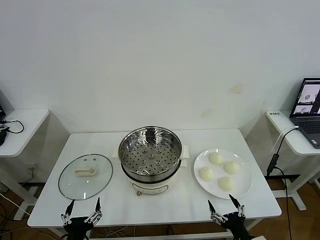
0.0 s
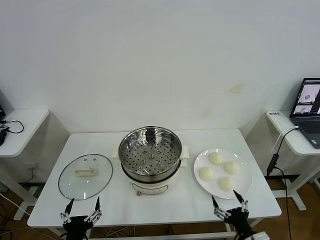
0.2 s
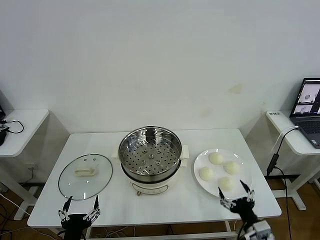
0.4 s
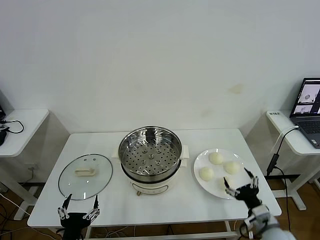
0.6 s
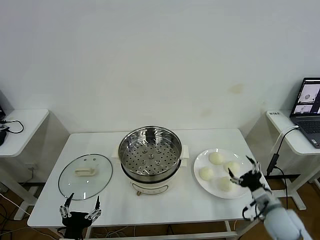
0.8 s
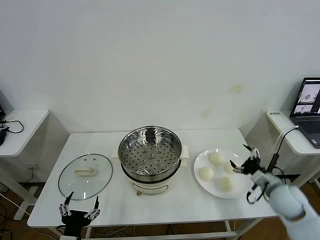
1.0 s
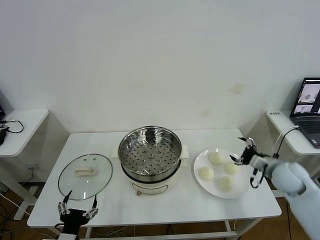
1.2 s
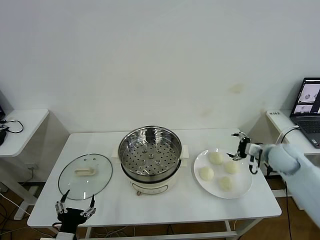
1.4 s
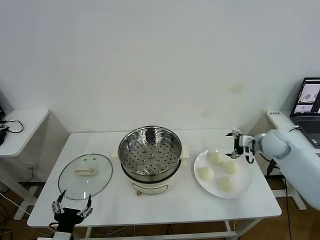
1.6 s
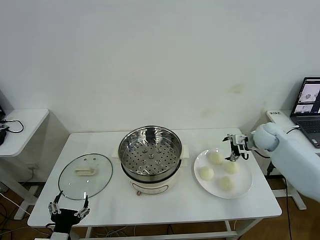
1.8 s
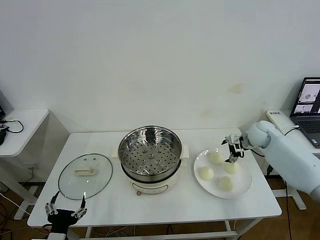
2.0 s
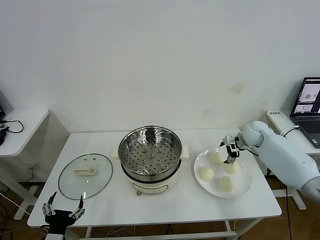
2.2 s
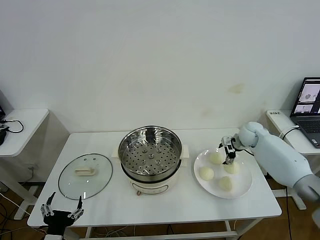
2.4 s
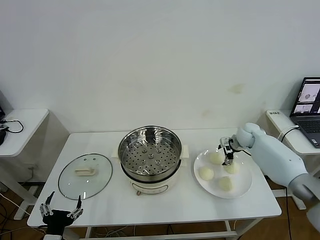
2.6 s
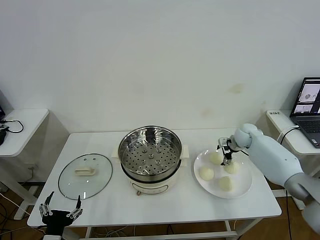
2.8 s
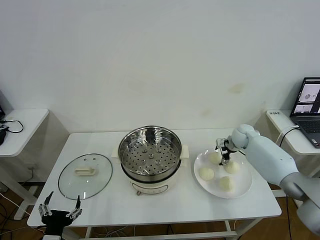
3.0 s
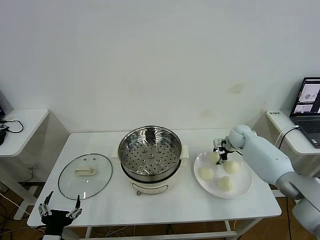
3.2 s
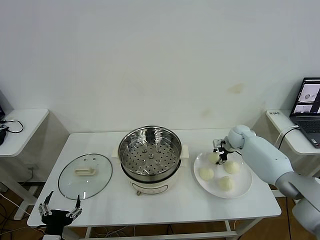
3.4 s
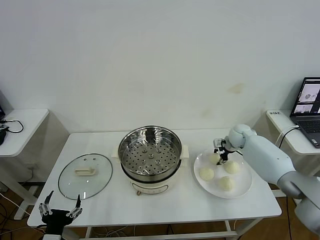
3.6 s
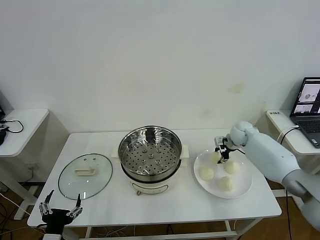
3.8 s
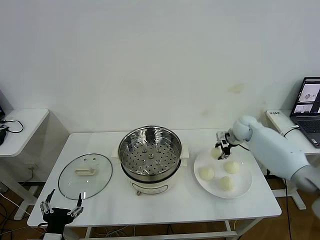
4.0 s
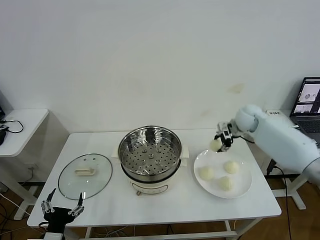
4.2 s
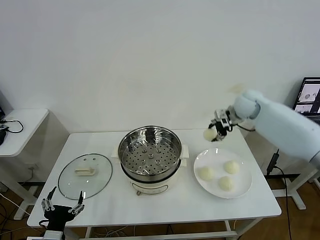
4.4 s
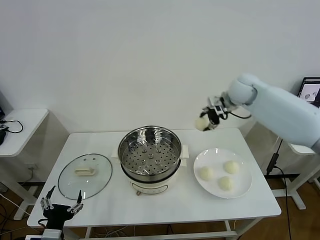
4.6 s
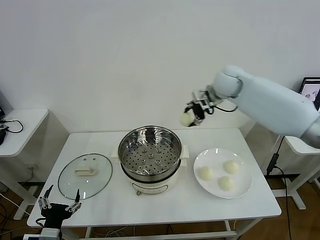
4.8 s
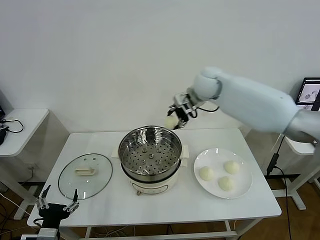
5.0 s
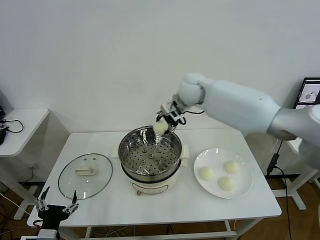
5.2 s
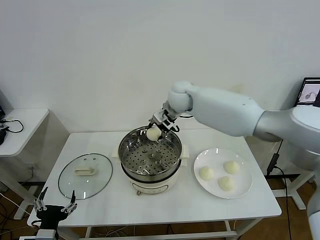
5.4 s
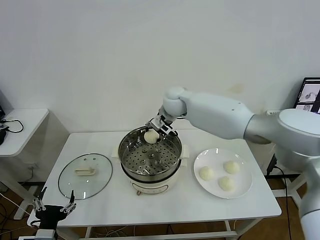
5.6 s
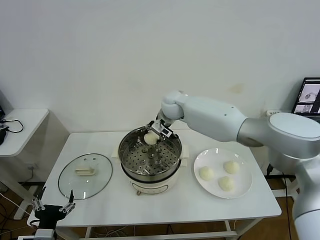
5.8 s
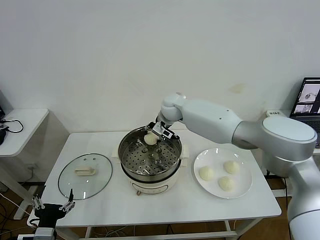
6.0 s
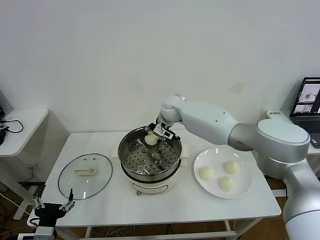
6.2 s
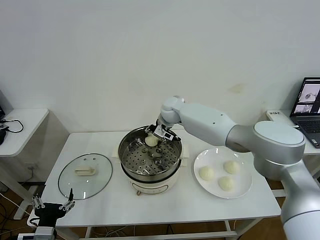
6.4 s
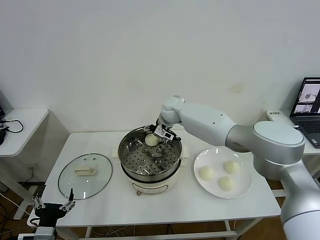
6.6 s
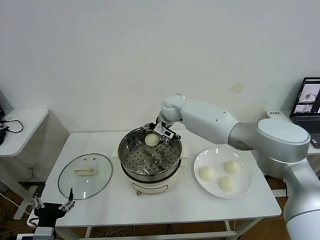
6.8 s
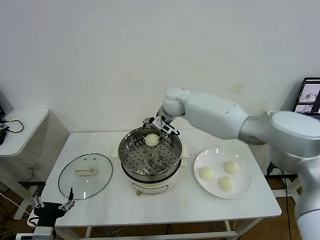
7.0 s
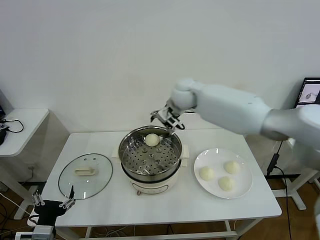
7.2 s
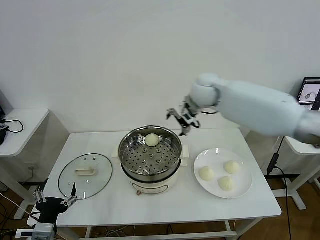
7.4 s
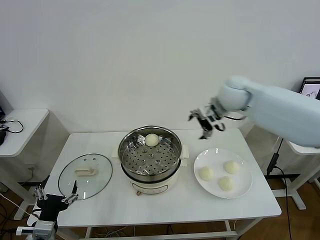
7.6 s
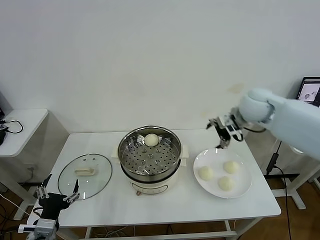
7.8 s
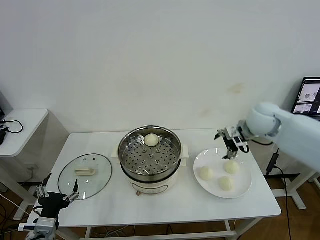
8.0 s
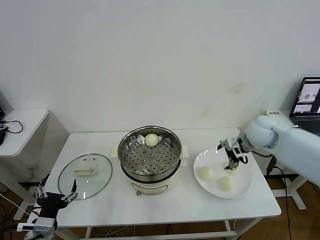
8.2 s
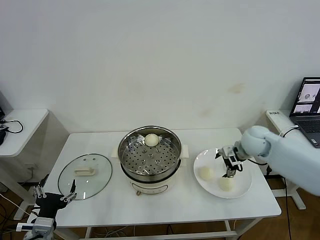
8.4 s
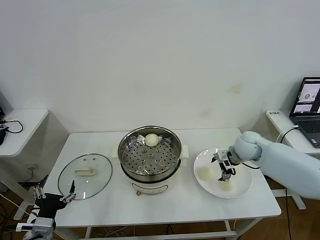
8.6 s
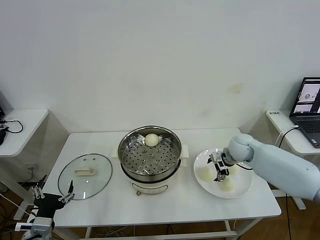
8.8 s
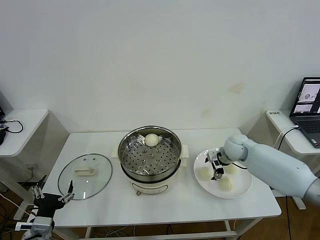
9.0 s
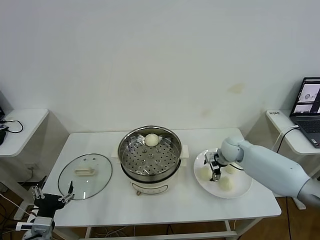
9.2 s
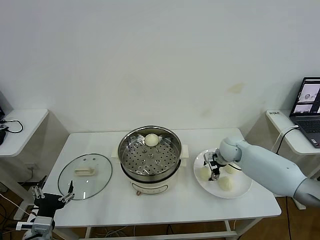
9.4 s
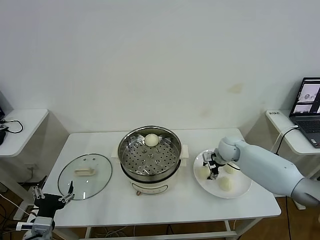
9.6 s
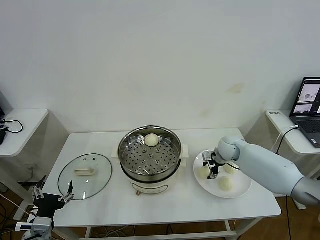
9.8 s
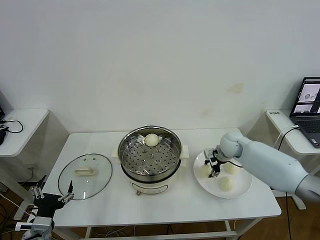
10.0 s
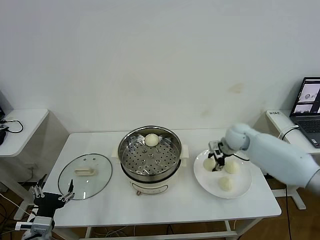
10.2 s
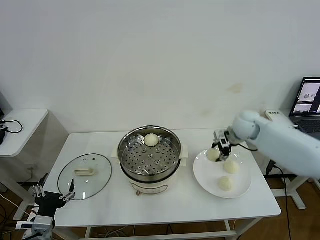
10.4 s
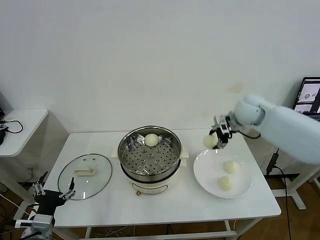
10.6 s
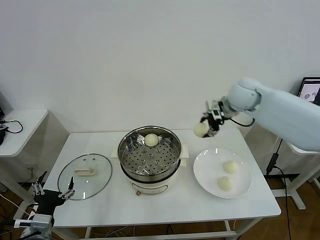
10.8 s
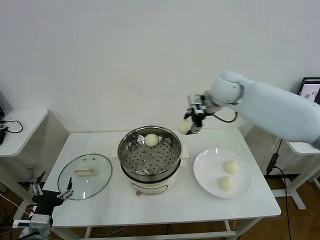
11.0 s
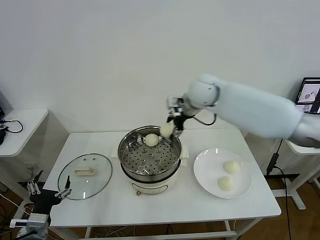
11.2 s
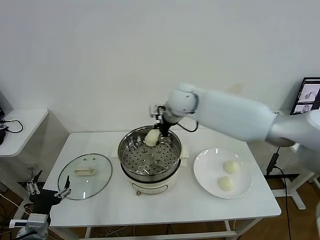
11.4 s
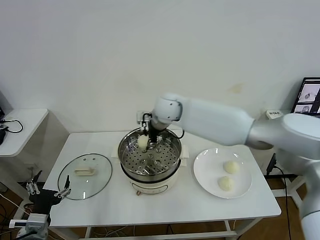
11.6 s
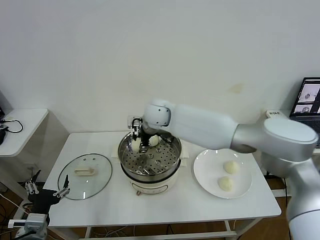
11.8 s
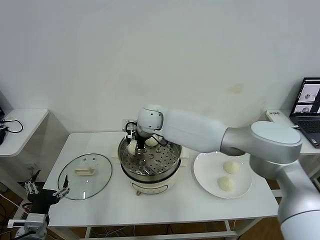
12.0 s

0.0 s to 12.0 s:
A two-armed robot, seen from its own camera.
Task of the whole recording: take steamed baozi put them in steamer then cover it.
Step, 0.0 to 3.4 s: Grasp the baozi in the plate with right gripper.
Step, 3.6 to 7.0 s: Place the baozi on the steamer with right gripper.
Step, 7.2 to 9.8 s: Grasp the baozi in the plate with right gripper.
1.6 to 3.0 s: The right gripper shifts some 15 cm forward, downward and to the left.
3.0 to 4.4 s: The right gripper travels upward by some 15 cm, and closes up.
4.4 to 6.0 s: The right gripper travels to the left by roughly 25 cm.
6.0 to 7.6 s: The right gripper is displaced to the right, upward and backward by some 20 cm, and opens up.
7.6 to 9.0 s: The right gripper shifts roughly 20 cm downward.
9.0 to 10.4 s: The right gripper heads upward, covering some 10 cm, and closes its fingers.
10.4 to 12.0 s: The right gripper is displaced to the left by some 35 cm.

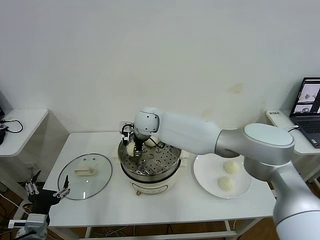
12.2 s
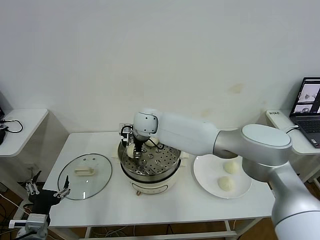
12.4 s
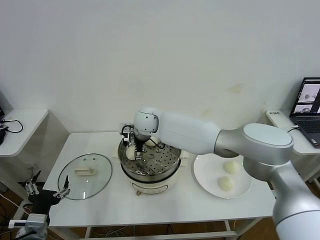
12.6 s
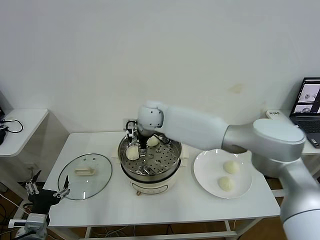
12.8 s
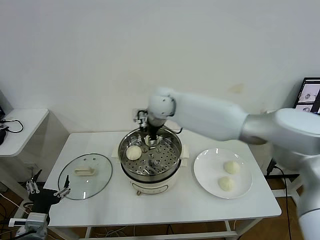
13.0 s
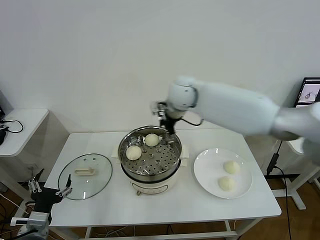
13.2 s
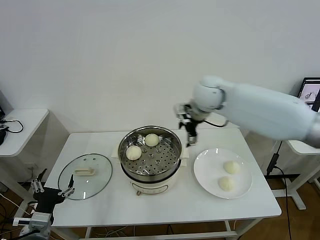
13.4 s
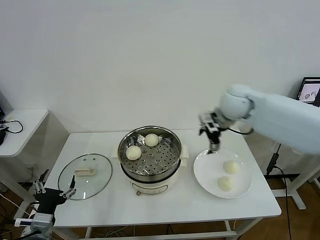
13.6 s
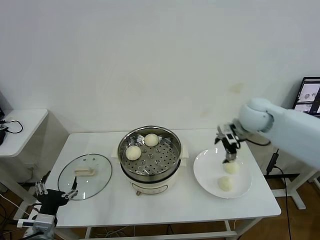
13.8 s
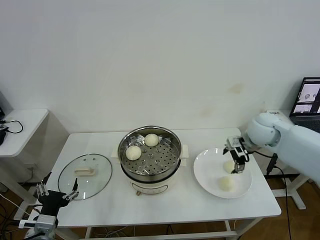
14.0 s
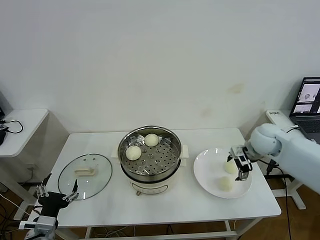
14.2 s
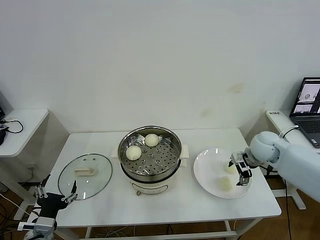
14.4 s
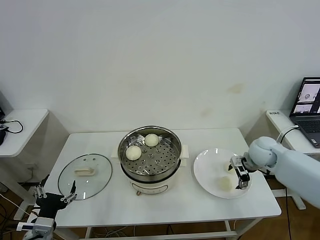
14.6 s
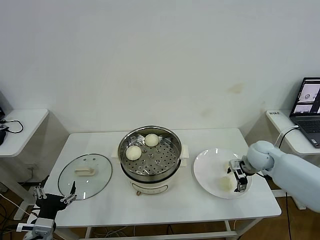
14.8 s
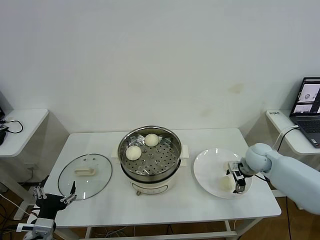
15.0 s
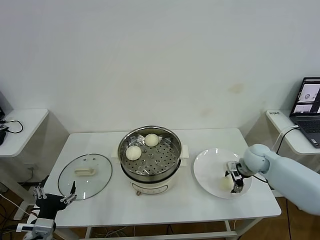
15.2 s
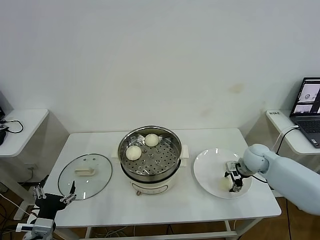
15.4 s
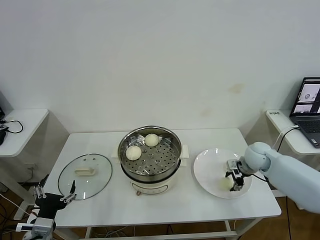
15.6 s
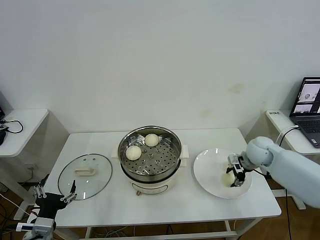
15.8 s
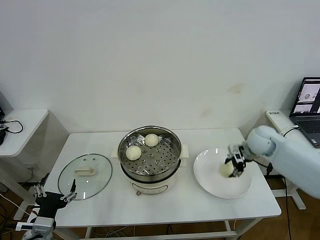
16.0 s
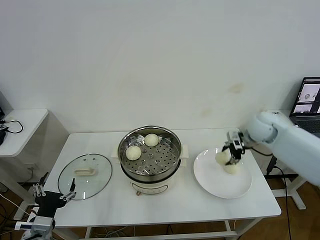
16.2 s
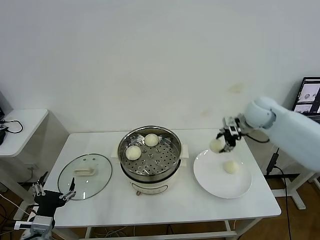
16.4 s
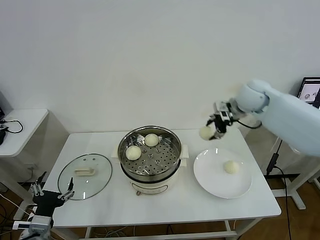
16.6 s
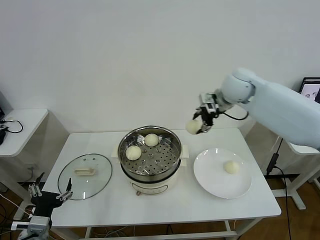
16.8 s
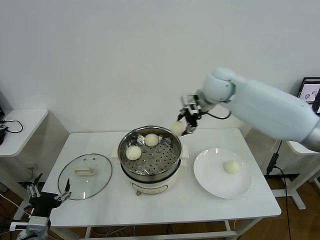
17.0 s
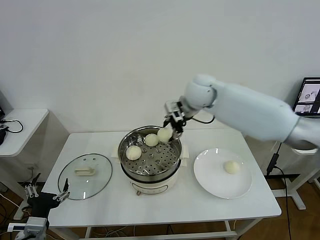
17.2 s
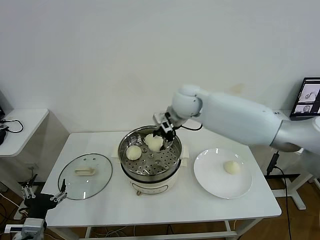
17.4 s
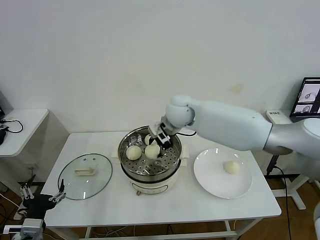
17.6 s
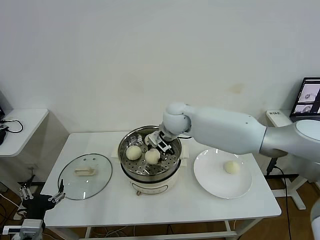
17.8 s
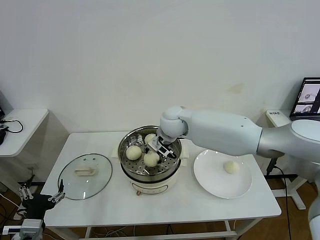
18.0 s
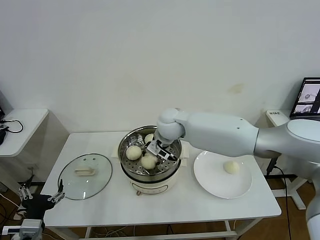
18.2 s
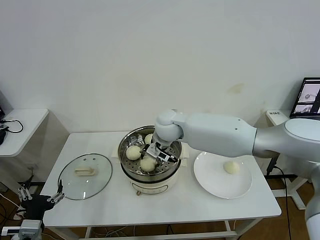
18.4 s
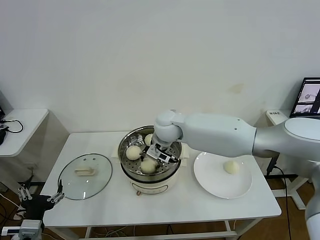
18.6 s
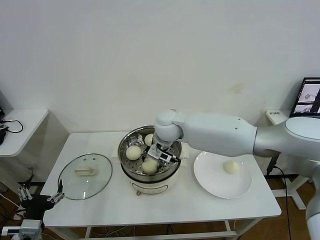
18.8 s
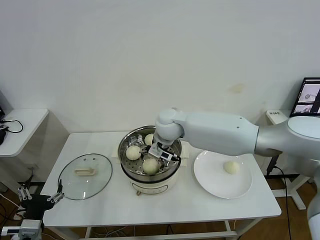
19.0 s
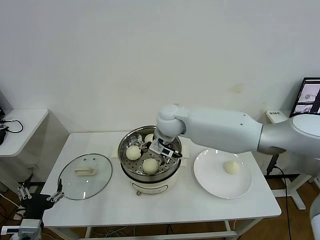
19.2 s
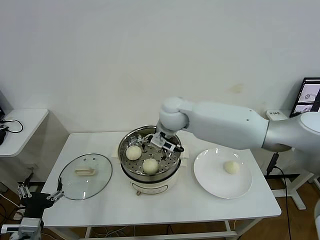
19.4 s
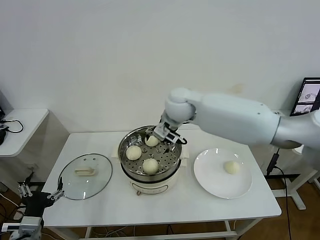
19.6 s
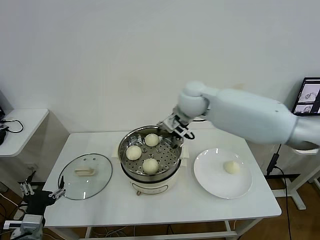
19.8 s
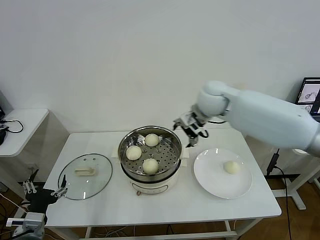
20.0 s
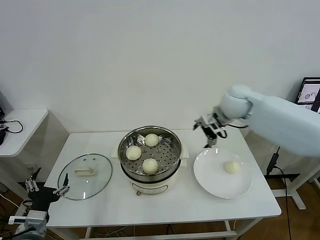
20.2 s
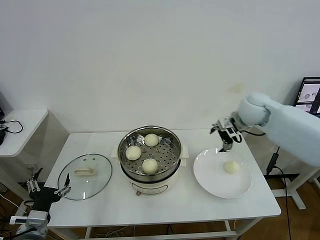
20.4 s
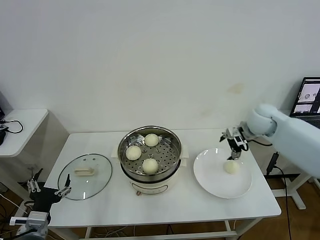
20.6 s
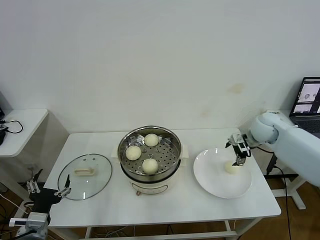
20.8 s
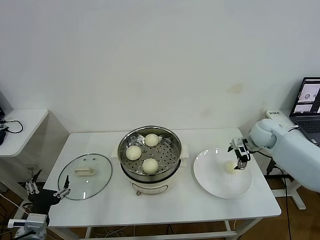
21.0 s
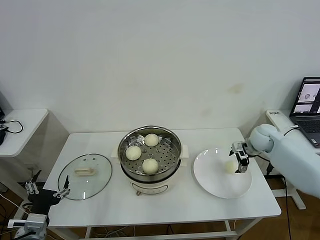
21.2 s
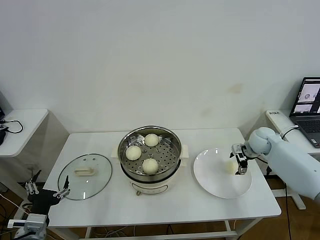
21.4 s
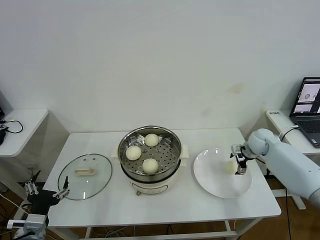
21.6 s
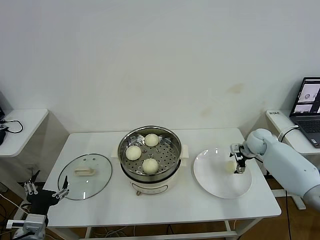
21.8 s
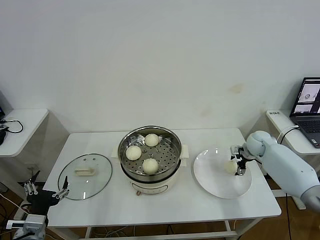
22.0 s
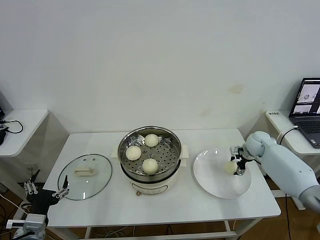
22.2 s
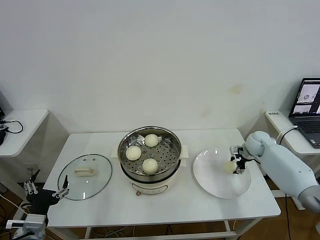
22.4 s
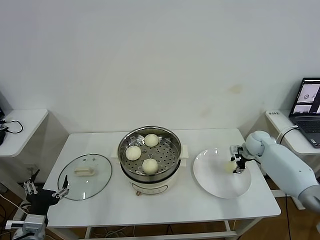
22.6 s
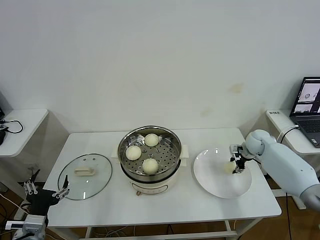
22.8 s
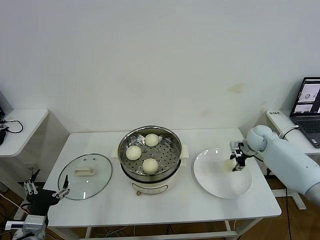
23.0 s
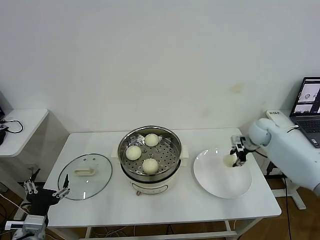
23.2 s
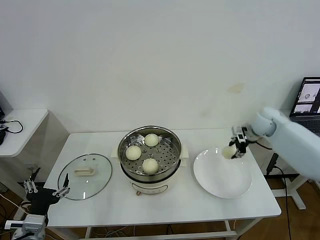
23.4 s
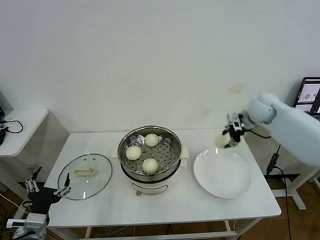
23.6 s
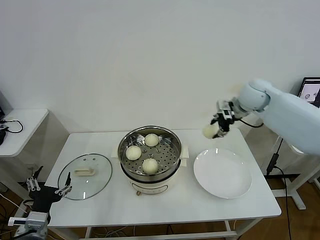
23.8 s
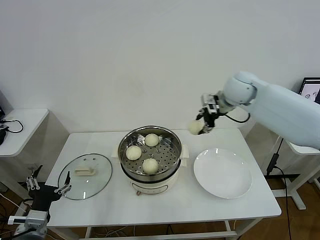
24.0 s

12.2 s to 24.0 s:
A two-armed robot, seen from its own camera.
Task of the whole recording: take steamed baozi put them in steamer then cover it.
Step, 13.0 to 15.4 s: Grasp the baozi in the plate with right gripper.
Step, 15.8 to 19.2 s: Place the baozi on the steamer with right gripper.
Step, 19.4 to 22.6 s: Grasp the baozi in the plate with right gripper.
12.2 to 13.6 s: The right gripper moves to the right, approximately 25 cm, and opens its fingers.
13.6 to 15.2 s: The right gripper heads downward and to the right, covering approximately 25 cm, and closes up.
15.2 to 16.6 s: The right gripper heads upward, covering approximately 20 cm, and closes up.
16.6 to 18.2 s: The right gripper goes some 25 cm to the left.
18.2 to 19.6 s: The right gripper travels upward by roughly 5 cm, and opens its fingers.
19.6 to 21.0 s: The right gripper moves to the right and downward, approximately 35 cm.
21.0 to 22.6 s: The right gripper goes roughly 10 cm downward, and closes.
22.6 to 24.0 s: The right gripper moves upward and to the left, approximately 30 cm.
